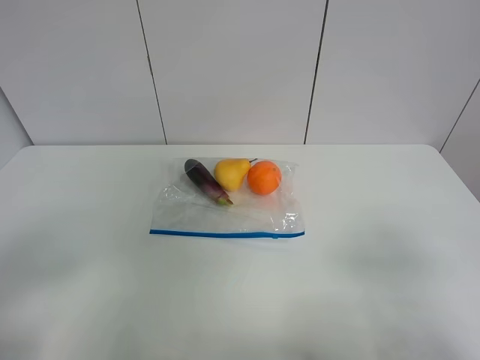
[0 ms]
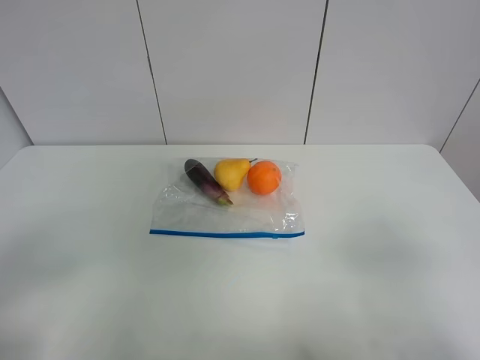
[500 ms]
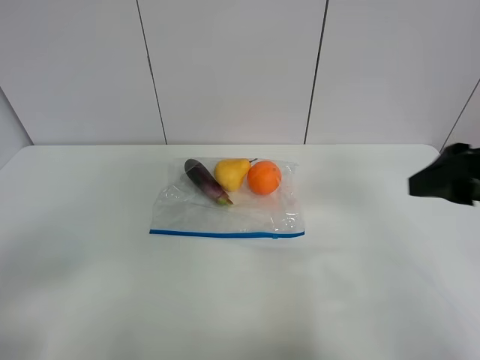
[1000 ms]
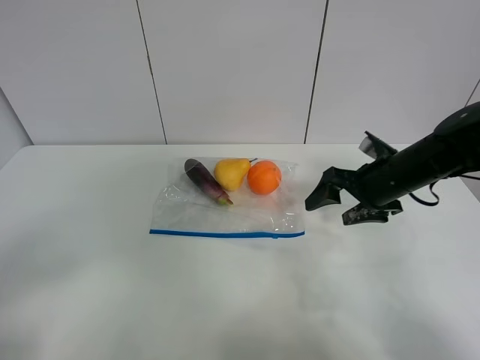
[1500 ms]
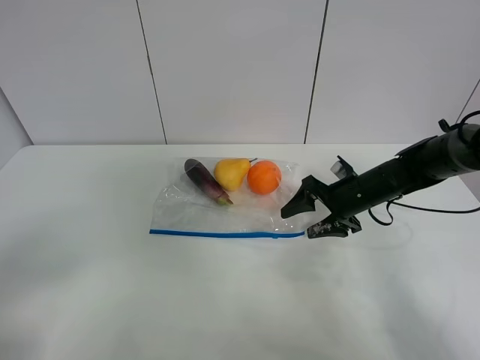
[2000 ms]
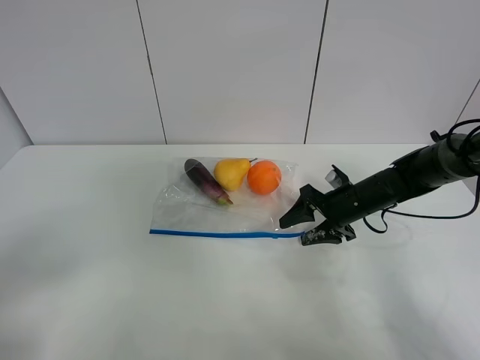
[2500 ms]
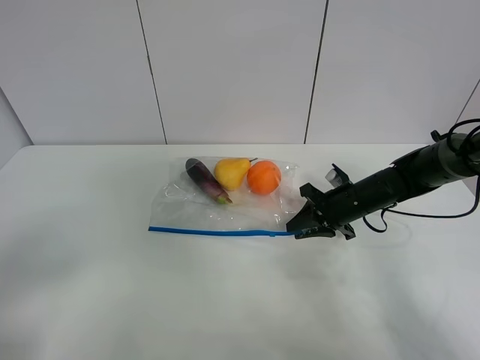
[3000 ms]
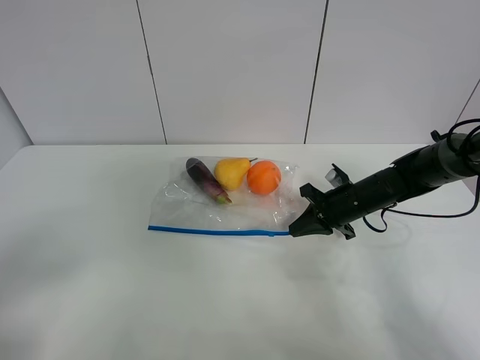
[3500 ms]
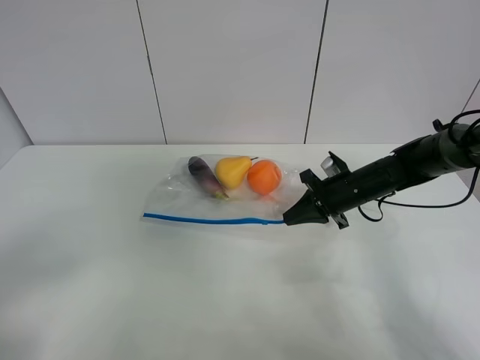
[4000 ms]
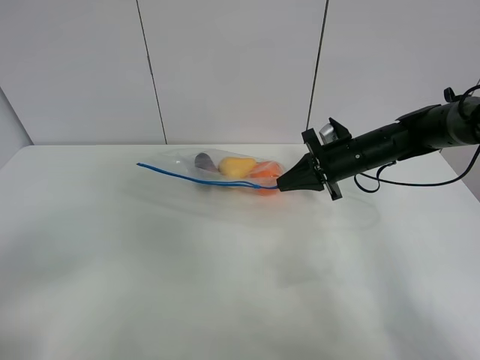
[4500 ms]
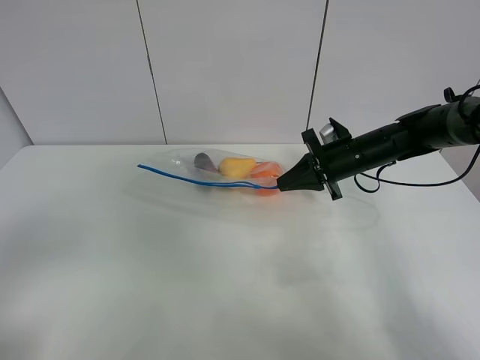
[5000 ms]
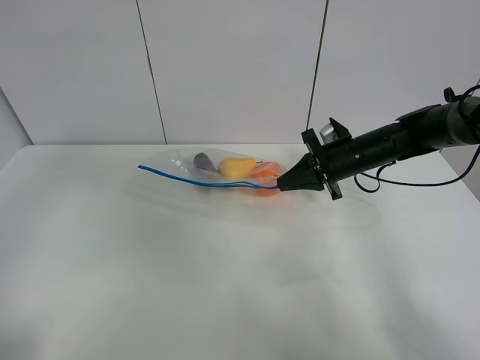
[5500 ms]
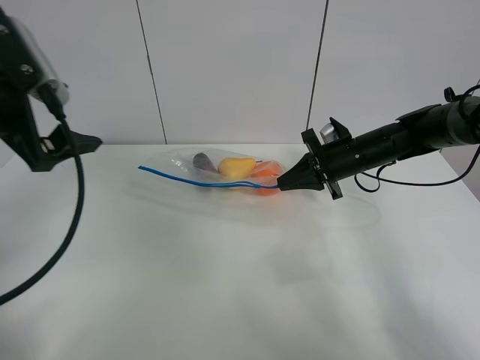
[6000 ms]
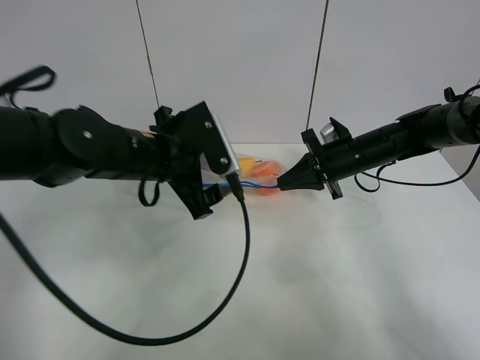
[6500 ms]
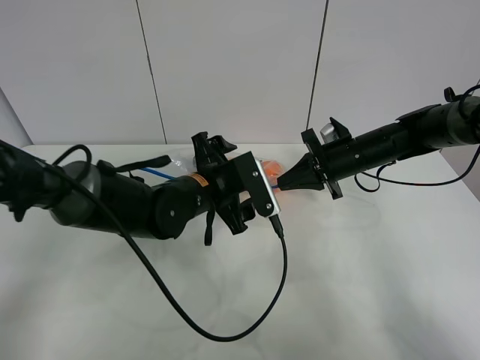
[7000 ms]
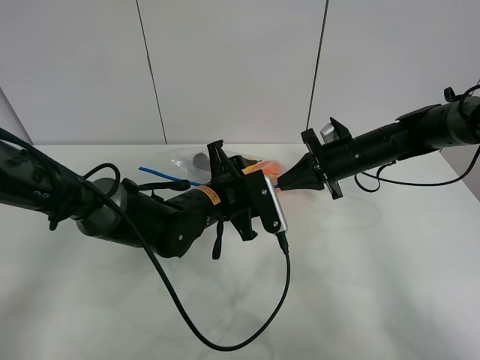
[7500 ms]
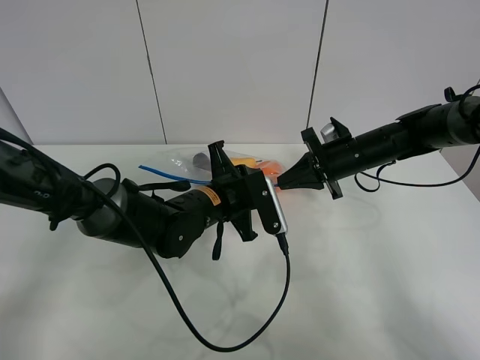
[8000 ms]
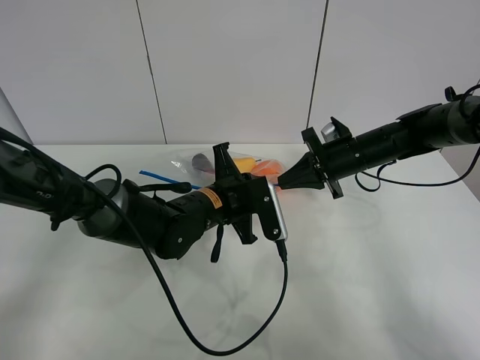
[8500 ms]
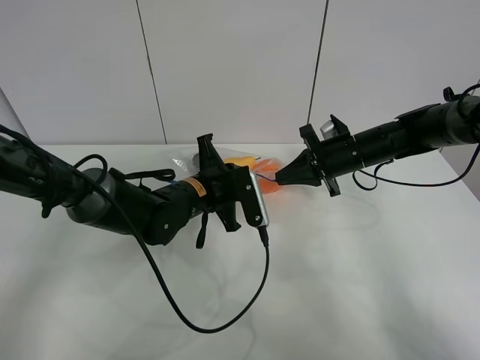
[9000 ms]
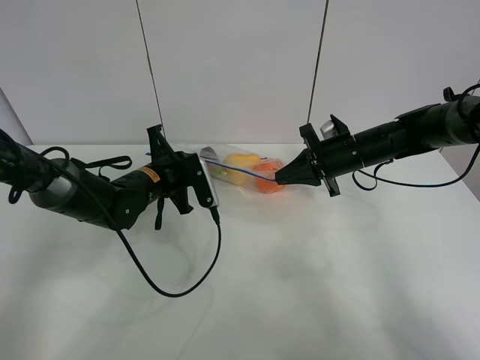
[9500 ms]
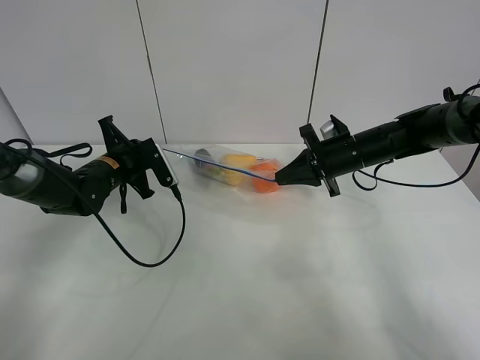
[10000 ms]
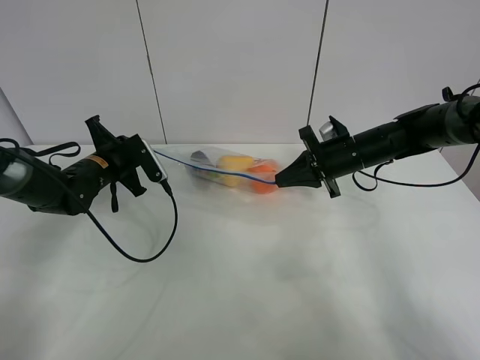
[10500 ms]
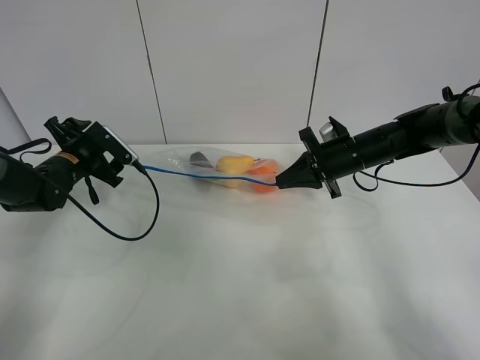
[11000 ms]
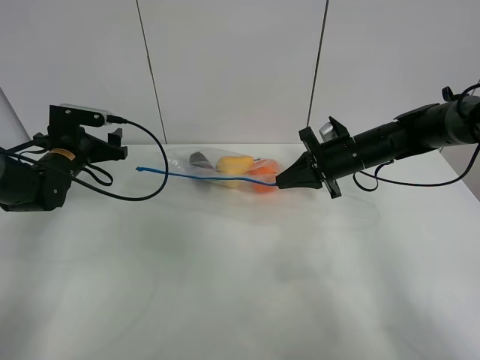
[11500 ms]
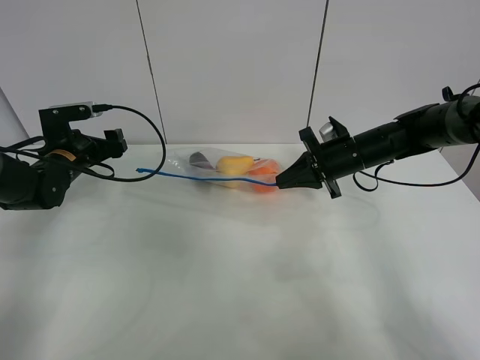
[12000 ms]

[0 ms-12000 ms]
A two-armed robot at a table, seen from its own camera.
Step, 0 ms to 3000 ms: Grasp the fruit bag with right gripper.
Step, 3500 ms to 4000 ms: Lift the fruit bag with your right gripper.
Step, 4500 ms to 10500 ms: Pull the fruit bag with left gripper.
0 ms to 2000 ms: The right gripper moves forward and downward, roughly 40 cm.
2000 ms to 4000 ms: The right gripper closes its fingers.
4000 ms to 6000 ms: The left gripper goes roughly 25 cm forward.
6000 ms to 8000 ms: The left gripper travels to the right and downward by approximately 30 cm, and closes up.
8000 ms to 10000 ms: The left gripper travels to the left and forward by roughly 20 cm.
10000 ms to 12000 ms: The left gripper is displaced to the left by roughly 5 cm, and opens up.

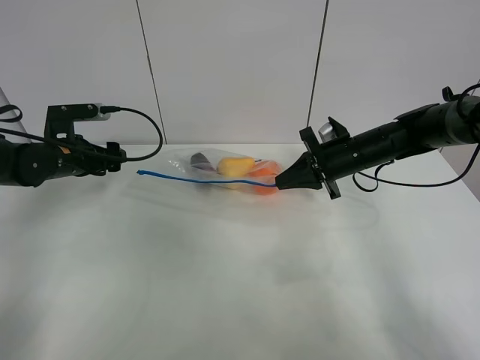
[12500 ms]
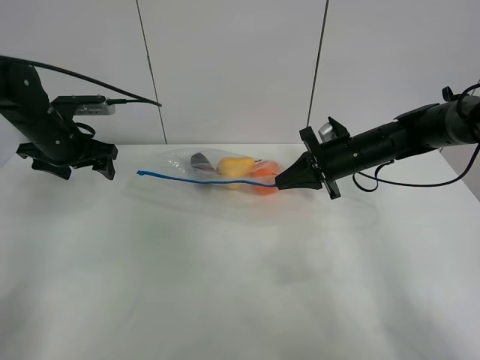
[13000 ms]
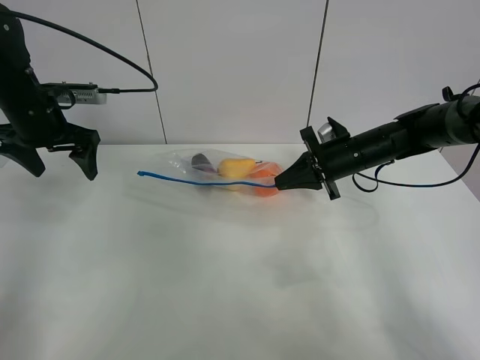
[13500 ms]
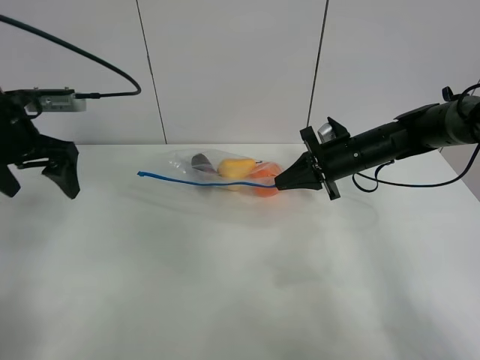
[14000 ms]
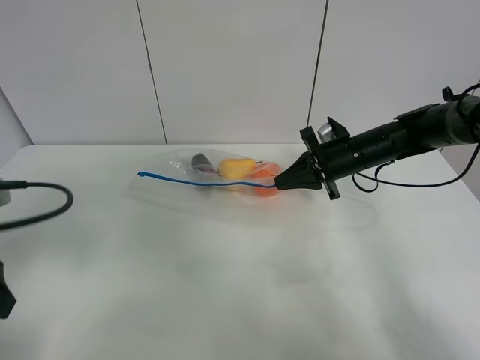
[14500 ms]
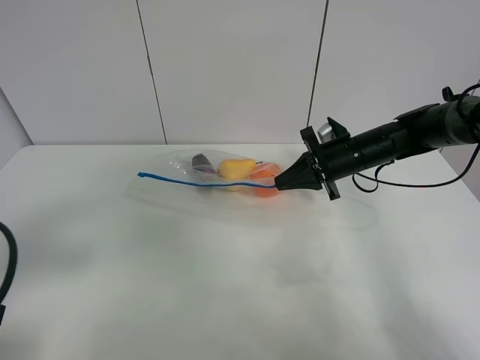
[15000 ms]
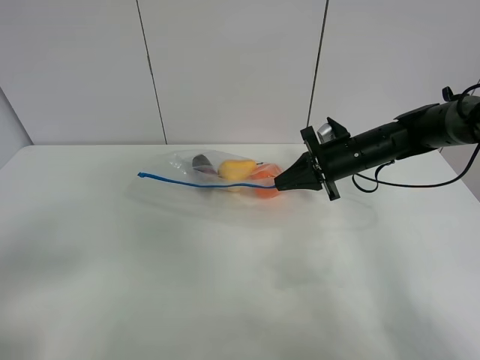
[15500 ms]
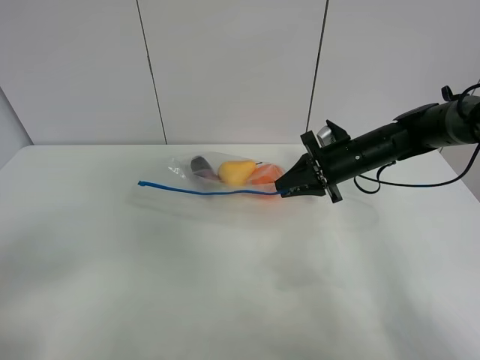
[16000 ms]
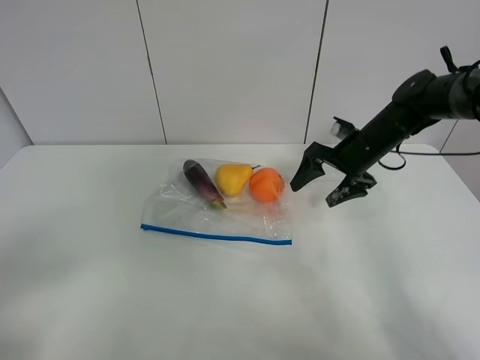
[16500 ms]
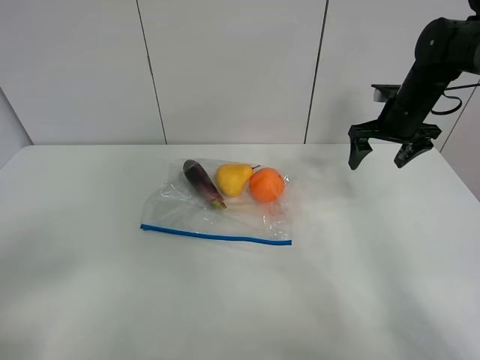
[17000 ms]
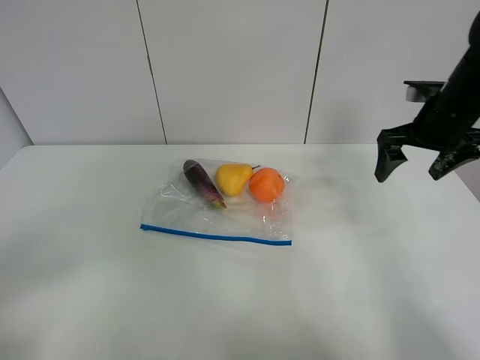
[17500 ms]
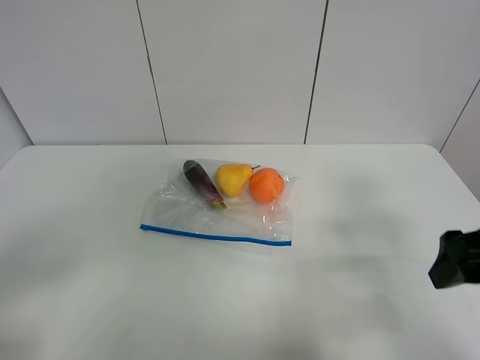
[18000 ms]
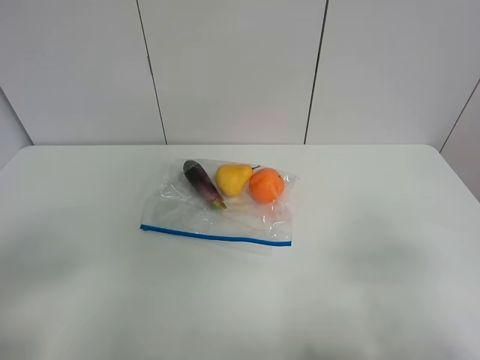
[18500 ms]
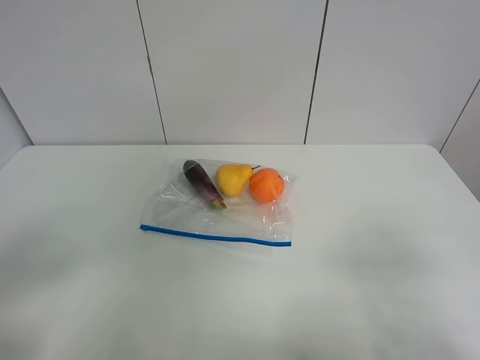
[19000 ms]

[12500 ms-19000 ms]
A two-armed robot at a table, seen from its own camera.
12500 ms to 14500 ms: The left gripper heads backward and upward, covering about 25 cm.
14500 ms to 17000 ms: The left gripper shifts about 15 cm backward, while the right gripper shifts approximately 10 cm to the right and upward, and opens its fingers.
17000 ms to 19000 ms: The right gripper is displaced backward by some 40 cm.

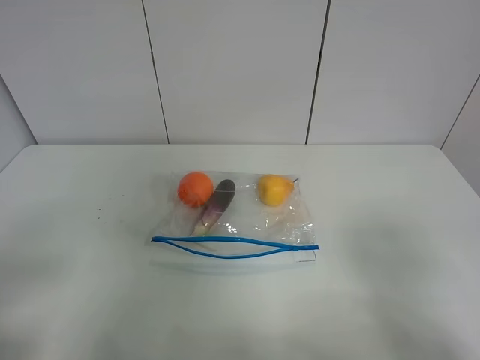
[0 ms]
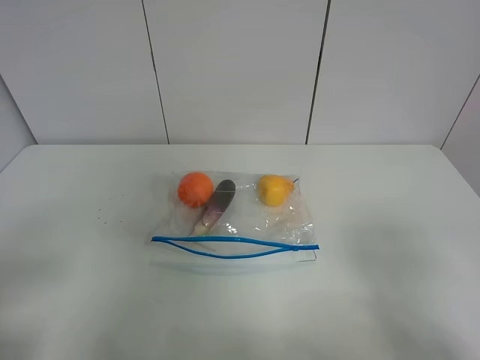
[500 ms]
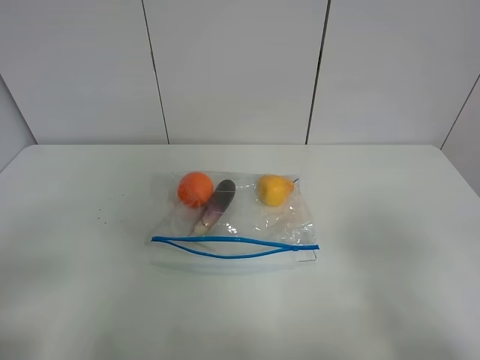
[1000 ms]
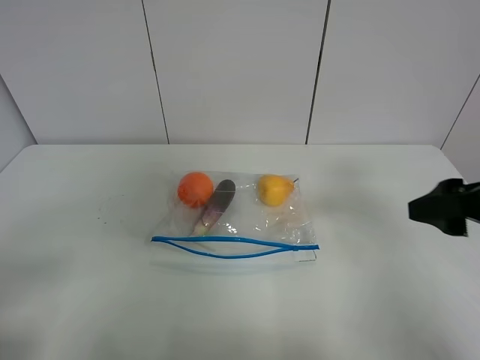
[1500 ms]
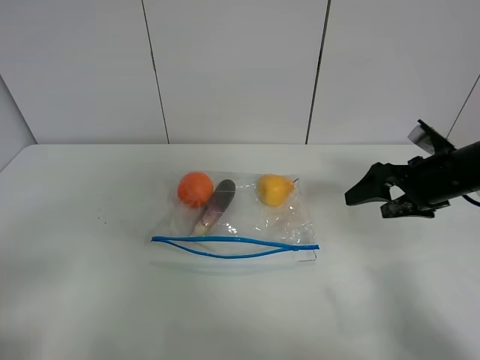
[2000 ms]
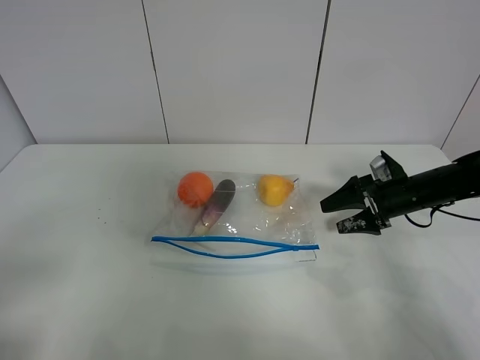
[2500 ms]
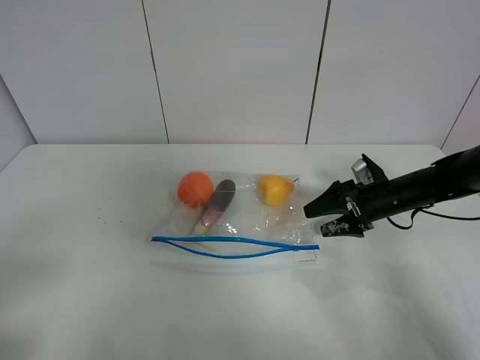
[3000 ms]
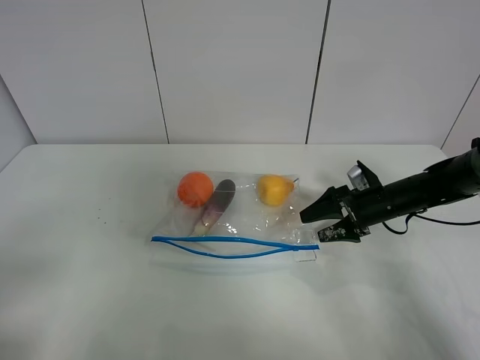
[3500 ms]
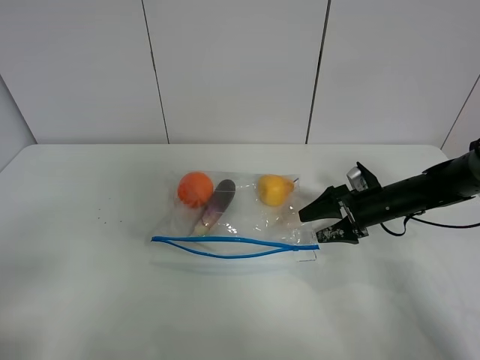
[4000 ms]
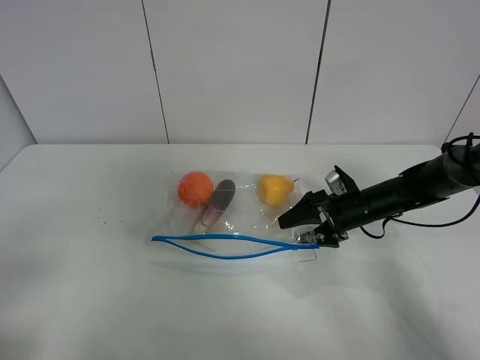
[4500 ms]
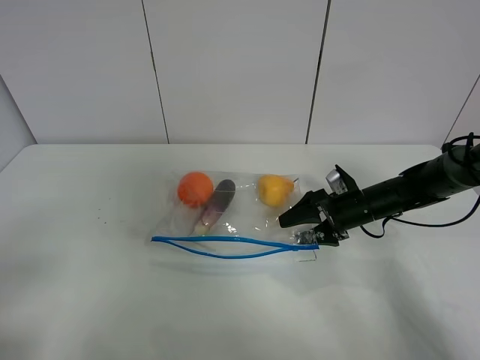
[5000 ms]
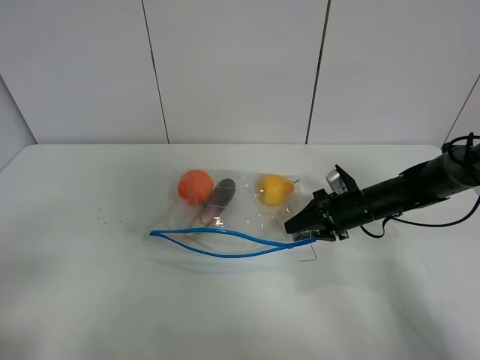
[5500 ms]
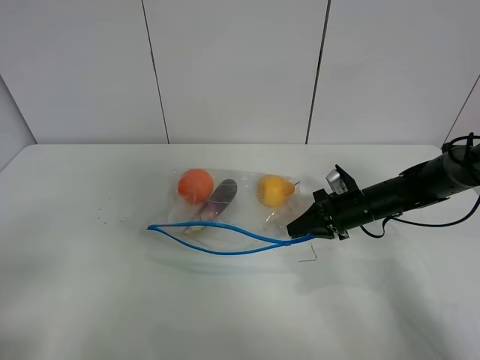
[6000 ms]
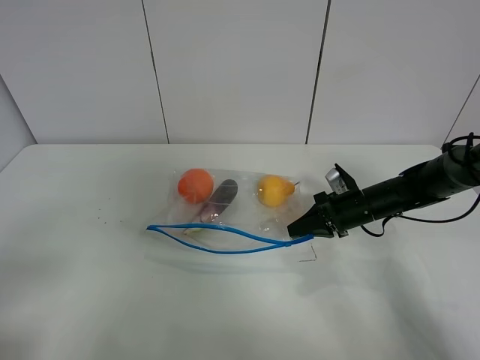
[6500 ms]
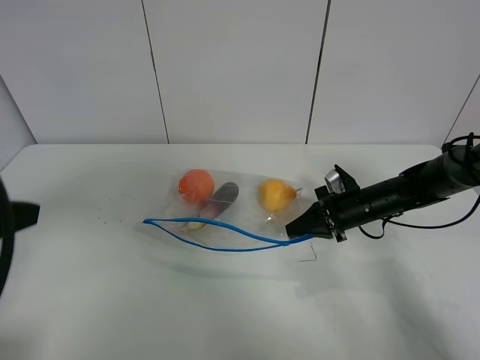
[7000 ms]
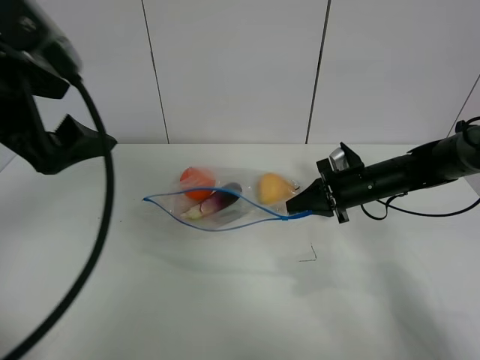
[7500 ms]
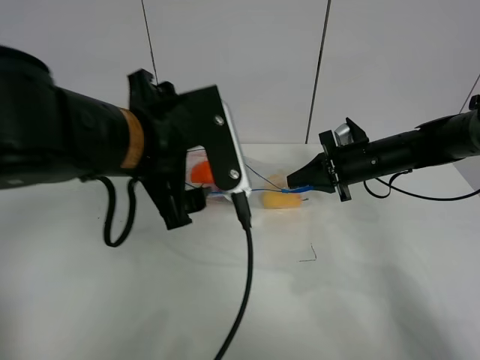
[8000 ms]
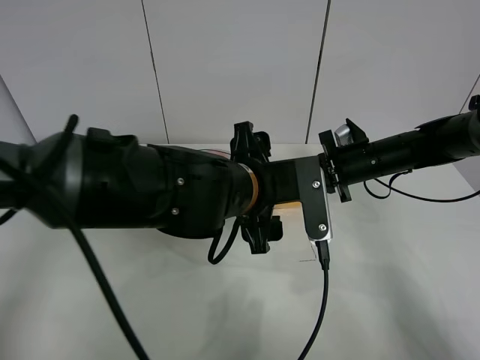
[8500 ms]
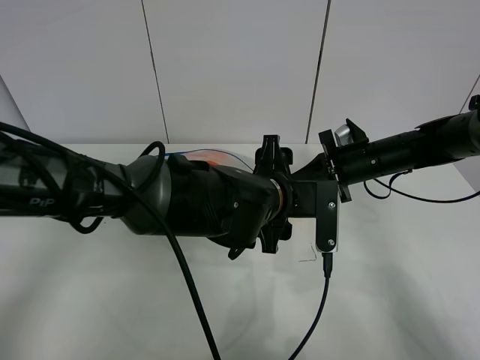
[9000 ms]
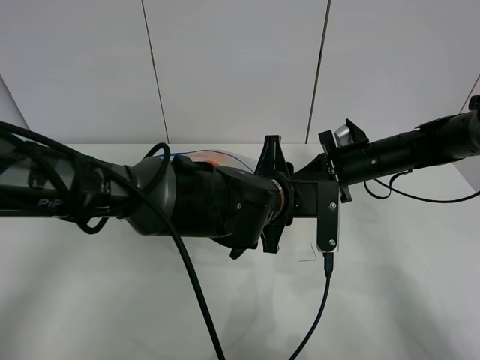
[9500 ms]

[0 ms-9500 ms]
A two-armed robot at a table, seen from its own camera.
Step, 0 ms to 6000 ms: Grasp the fruit bag with right gripper.
Step, 6500 ms to 8000 ms: Lift the fruit bag with your right gripper.
0 ms to 2000 ms: The right gripper heads forward, covering approximately 30 cm.
2000 ms to 4000 ms: The right gripper heads downward, covering about 10 cm.
4000 ms to 5500 ms: The right gripper closes.
5500 ms to 7500 ms: The left gripper goes approximately 25 cm forward, to the right and upward. Meanwhile the right gripper ends up approximately 5 cm from where it was, and closes.
7500 ms to 9500 ms: The left gripper travels to the right and downward by some 30 cm, and closes up.
